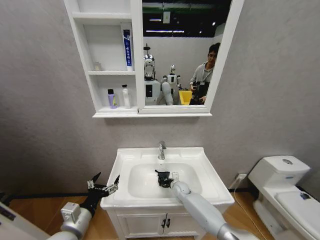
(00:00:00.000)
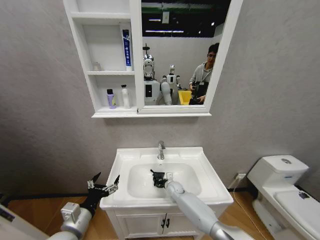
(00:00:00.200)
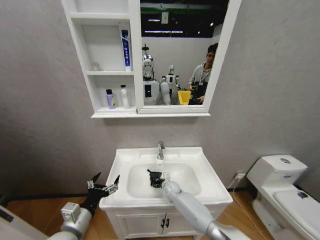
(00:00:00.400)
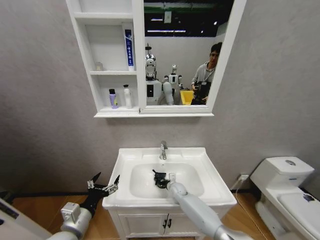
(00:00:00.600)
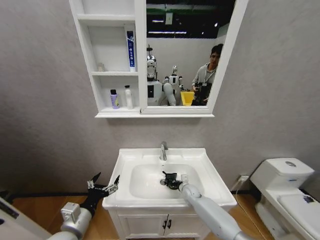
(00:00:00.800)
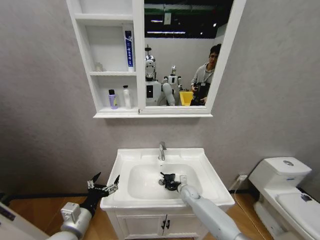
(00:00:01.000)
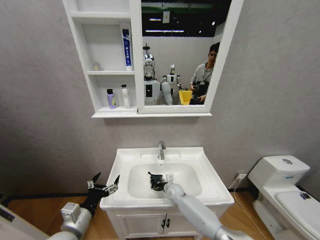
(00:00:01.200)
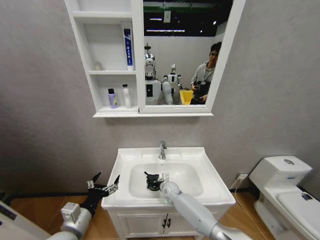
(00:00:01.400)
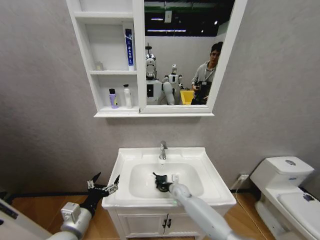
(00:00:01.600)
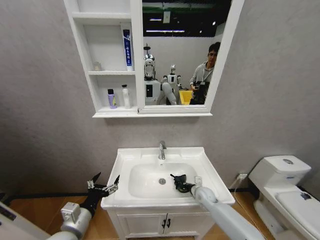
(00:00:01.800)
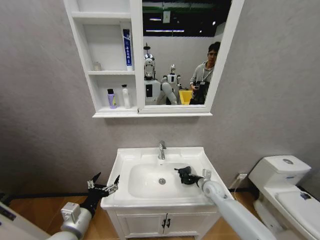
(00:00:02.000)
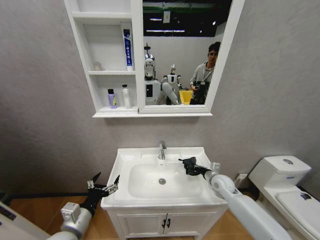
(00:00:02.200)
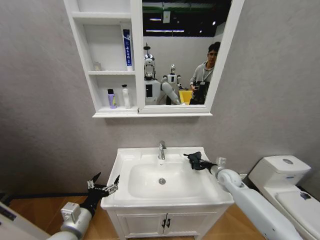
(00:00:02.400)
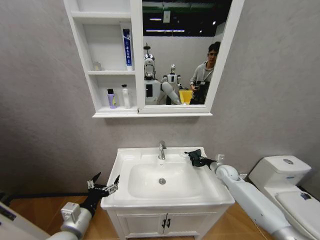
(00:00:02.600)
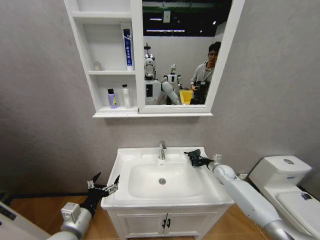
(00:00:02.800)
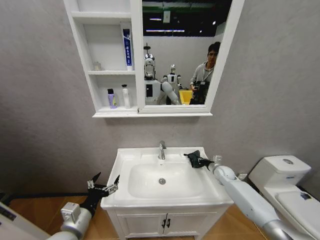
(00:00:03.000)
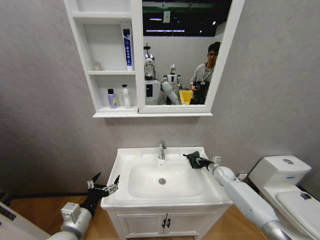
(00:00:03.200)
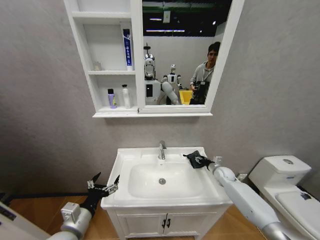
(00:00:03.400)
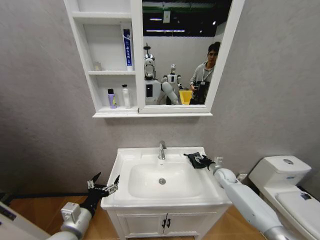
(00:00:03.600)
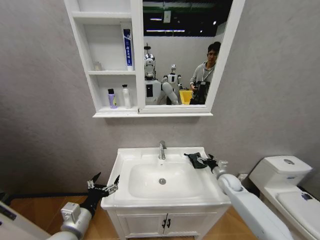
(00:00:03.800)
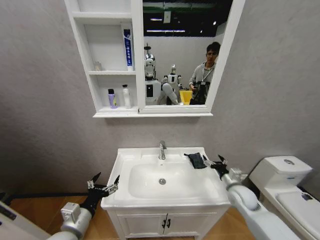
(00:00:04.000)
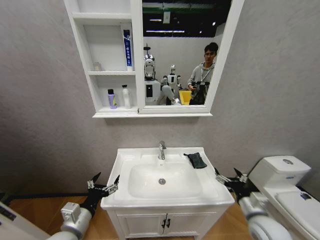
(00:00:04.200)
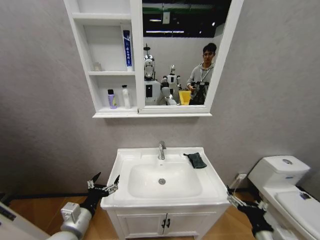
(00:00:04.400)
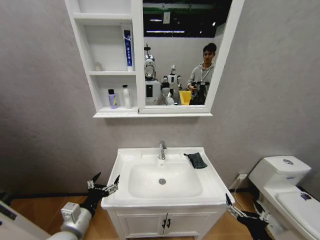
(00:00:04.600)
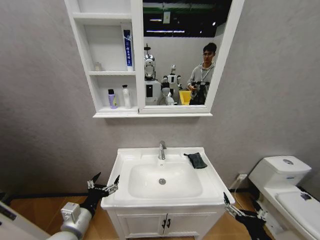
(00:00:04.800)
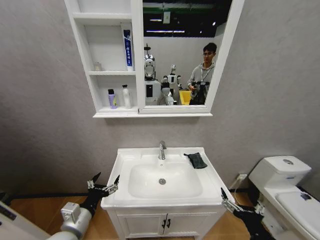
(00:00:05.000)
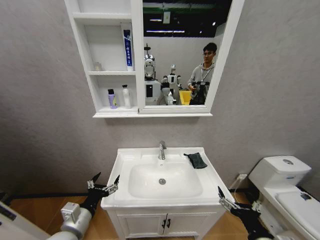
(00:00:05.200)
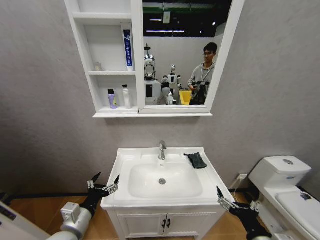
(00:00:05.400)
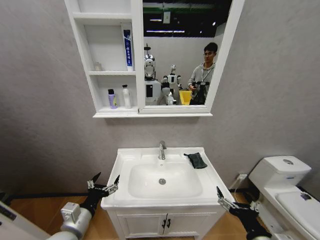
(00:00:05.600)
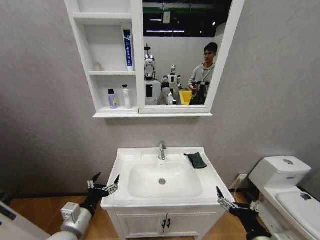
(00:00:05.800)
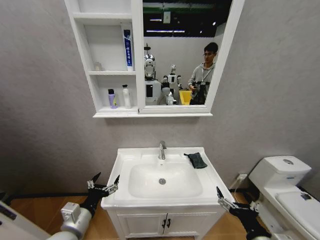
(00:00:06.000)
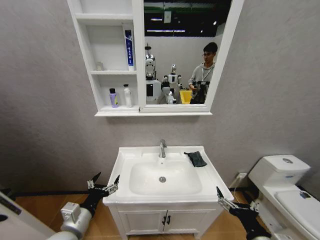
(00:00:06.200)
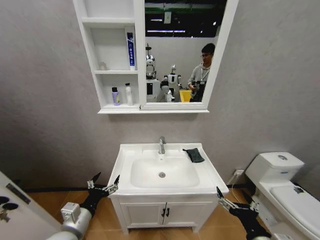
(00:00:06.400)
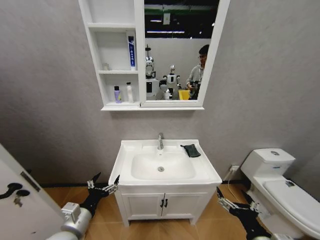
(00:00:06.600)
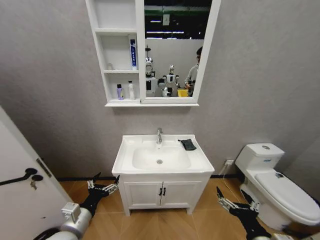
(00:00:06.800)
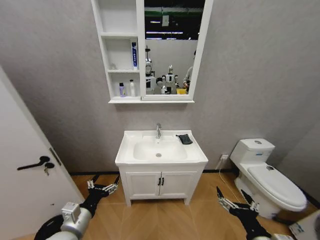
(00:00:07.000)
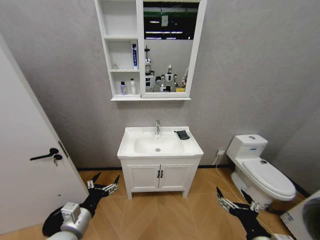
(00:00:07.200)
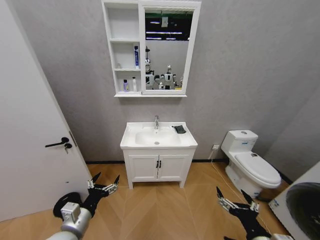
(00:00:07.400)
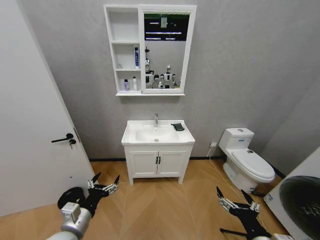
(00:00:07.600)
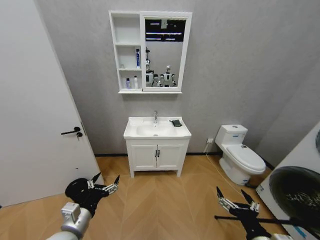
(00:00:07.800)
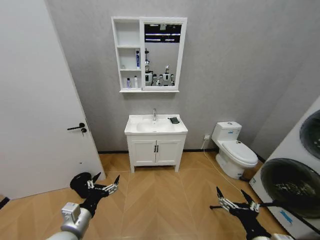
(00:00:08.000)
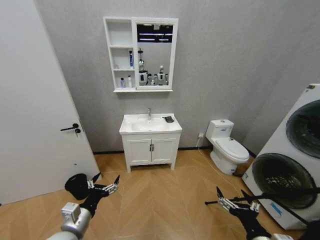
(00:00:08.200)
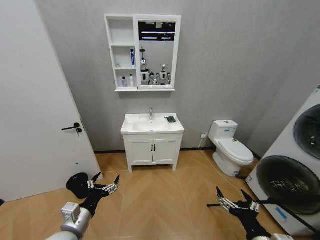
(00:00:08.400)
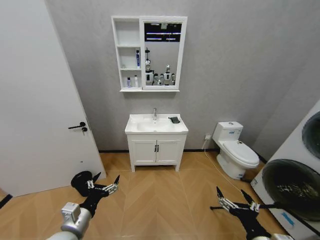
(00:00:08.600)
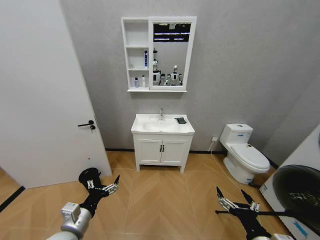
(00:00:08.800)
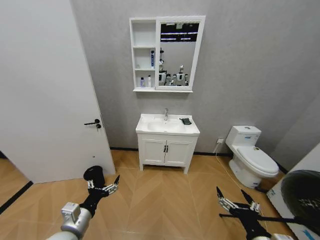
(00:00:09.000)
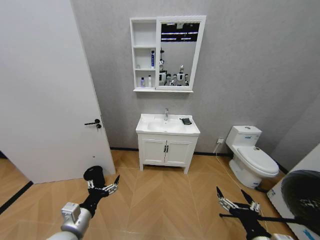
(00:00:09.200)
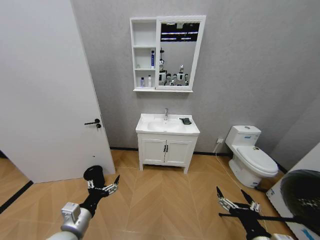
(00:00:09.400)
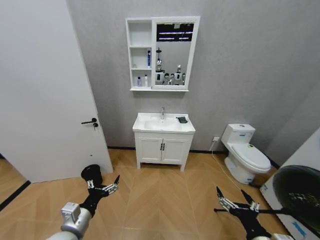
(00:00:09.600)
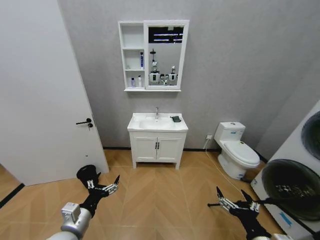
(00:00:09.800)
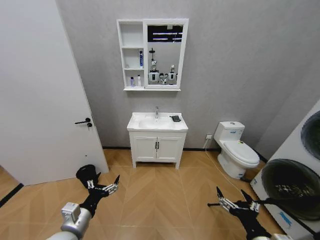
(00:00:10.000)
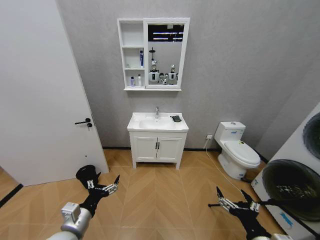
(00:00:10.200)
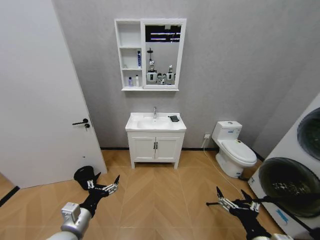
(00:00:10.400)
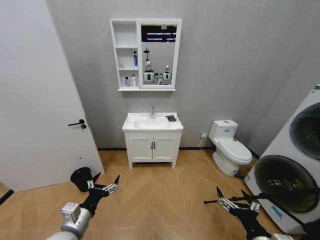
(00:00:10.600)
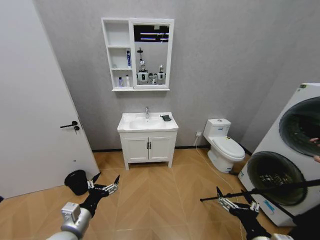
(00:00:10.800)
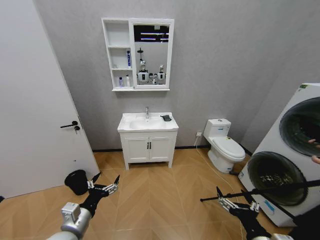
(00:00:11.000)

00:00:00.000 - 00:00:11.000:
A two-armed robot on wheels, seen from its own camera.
Task of the whole recording: Move facial cleanser and shampoo from washbasin to cabinet, then wipe washbasin with towel.
00:00:00.000 - 00:00:01.600: The right gripper moves left and right over about 10 cm, changing direction 3 times.
00:00:01.600 - 00:00:03.200: The right gripper shifts roughly 25 cm to the right.
00:00:03.200 - 00:00:04.800: The right gripper heads backward, covering some 40 cm, and opens its fingers.
00:00:04.800 - 00:00:06.200: The grippers move only a little.

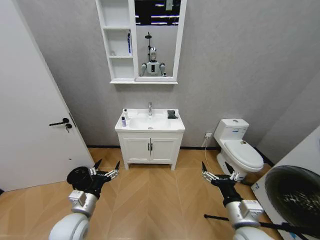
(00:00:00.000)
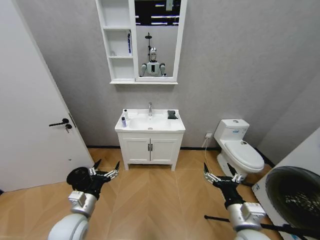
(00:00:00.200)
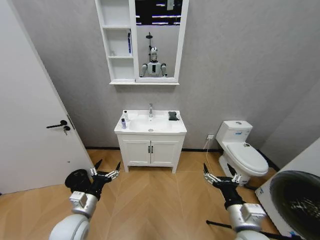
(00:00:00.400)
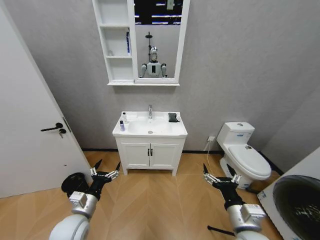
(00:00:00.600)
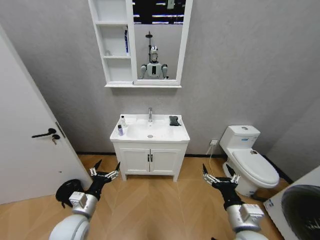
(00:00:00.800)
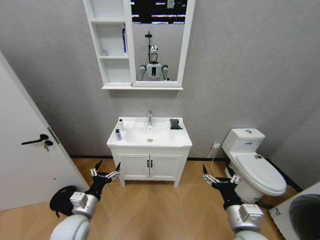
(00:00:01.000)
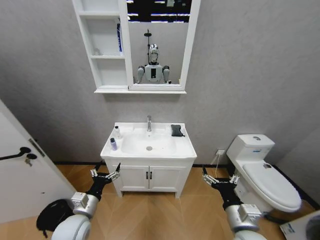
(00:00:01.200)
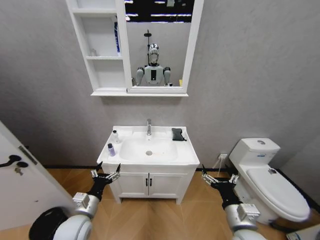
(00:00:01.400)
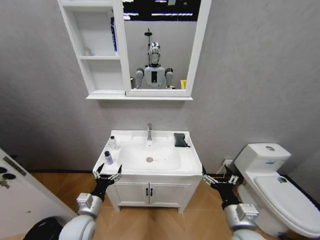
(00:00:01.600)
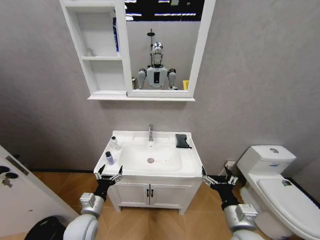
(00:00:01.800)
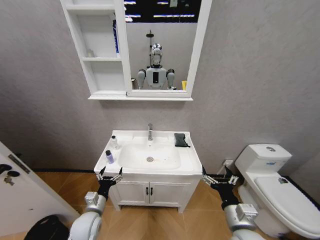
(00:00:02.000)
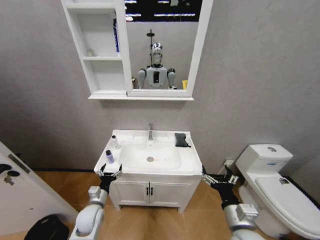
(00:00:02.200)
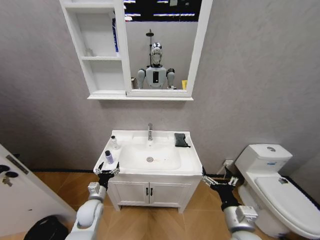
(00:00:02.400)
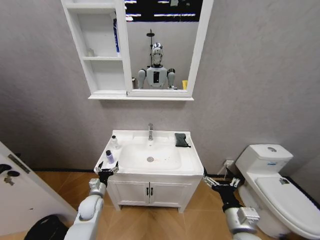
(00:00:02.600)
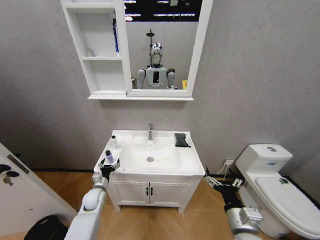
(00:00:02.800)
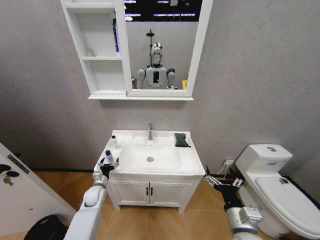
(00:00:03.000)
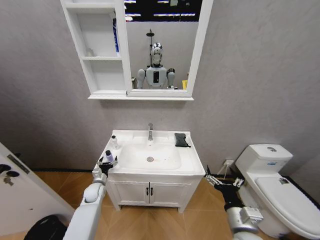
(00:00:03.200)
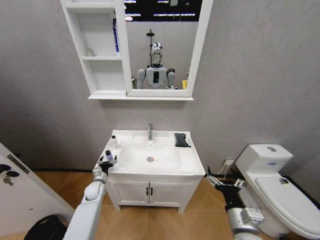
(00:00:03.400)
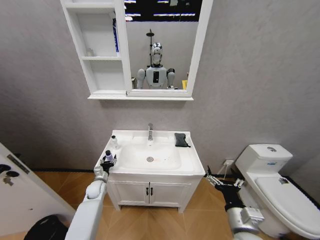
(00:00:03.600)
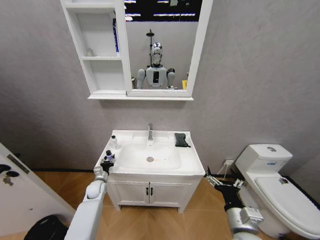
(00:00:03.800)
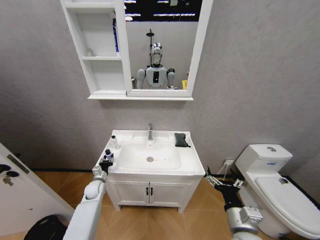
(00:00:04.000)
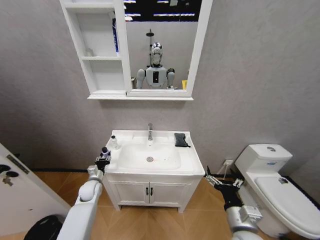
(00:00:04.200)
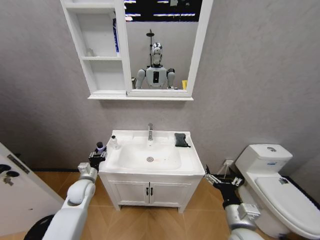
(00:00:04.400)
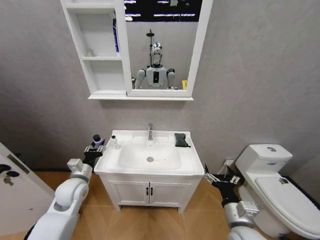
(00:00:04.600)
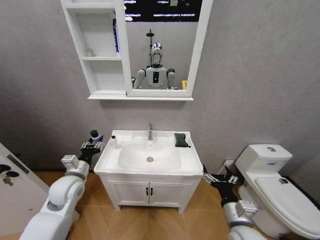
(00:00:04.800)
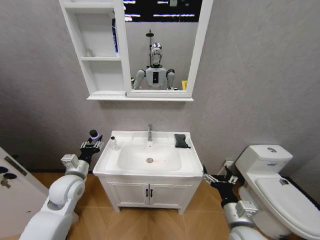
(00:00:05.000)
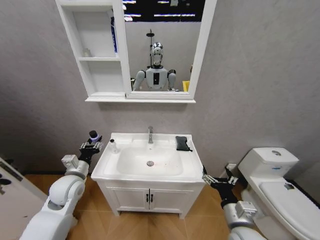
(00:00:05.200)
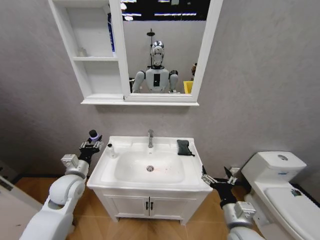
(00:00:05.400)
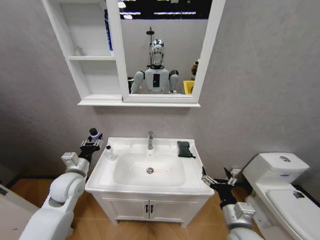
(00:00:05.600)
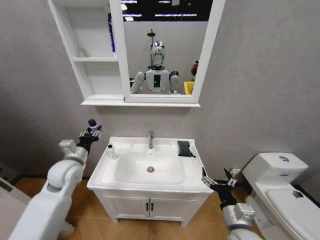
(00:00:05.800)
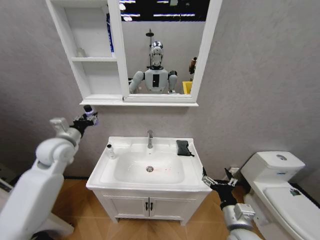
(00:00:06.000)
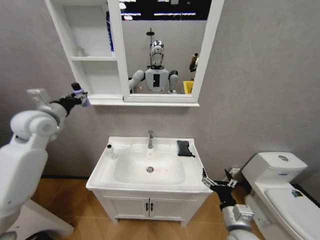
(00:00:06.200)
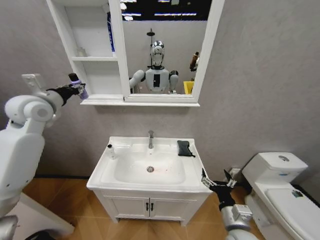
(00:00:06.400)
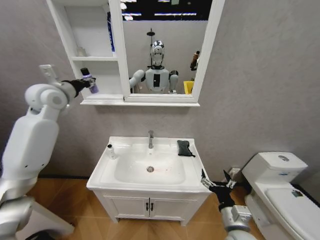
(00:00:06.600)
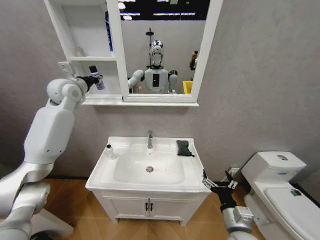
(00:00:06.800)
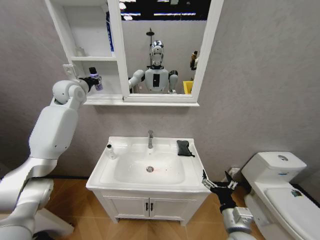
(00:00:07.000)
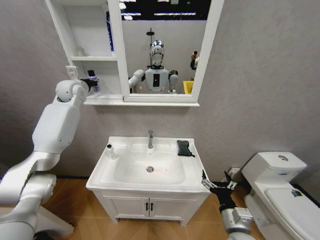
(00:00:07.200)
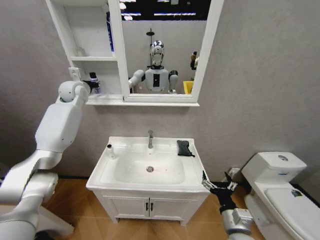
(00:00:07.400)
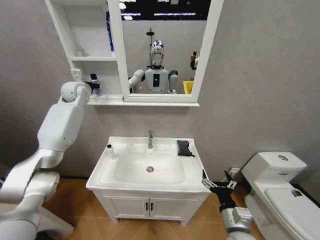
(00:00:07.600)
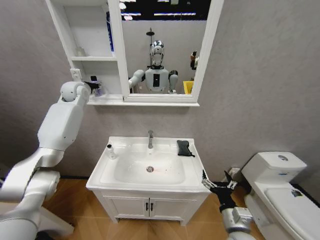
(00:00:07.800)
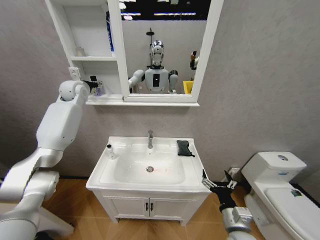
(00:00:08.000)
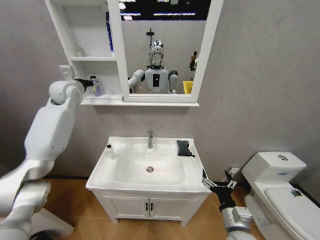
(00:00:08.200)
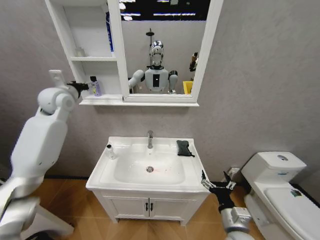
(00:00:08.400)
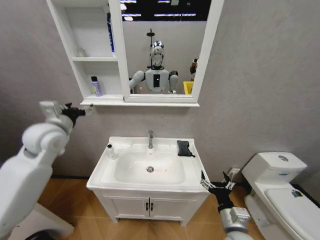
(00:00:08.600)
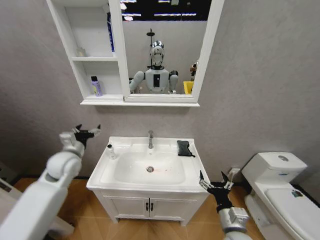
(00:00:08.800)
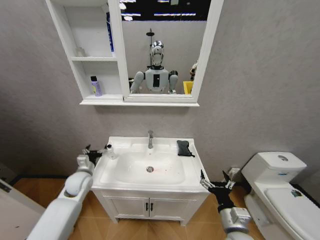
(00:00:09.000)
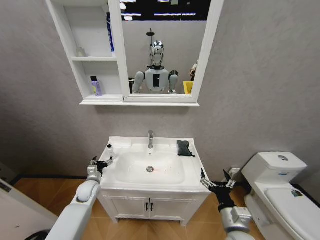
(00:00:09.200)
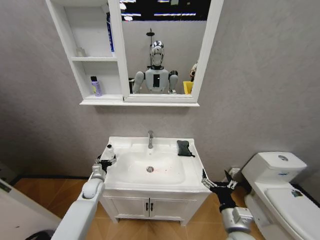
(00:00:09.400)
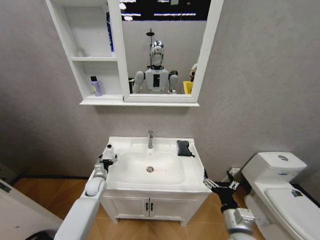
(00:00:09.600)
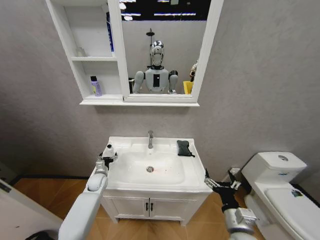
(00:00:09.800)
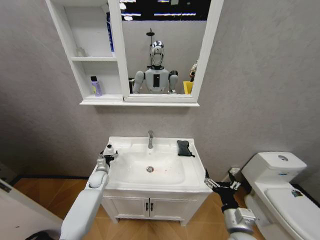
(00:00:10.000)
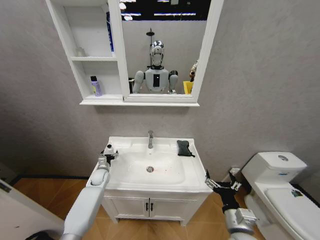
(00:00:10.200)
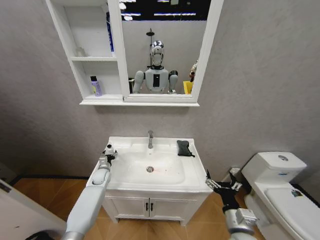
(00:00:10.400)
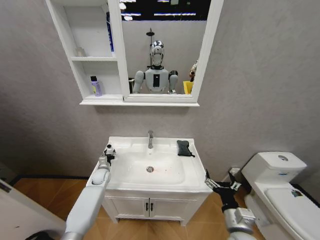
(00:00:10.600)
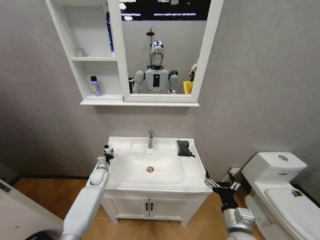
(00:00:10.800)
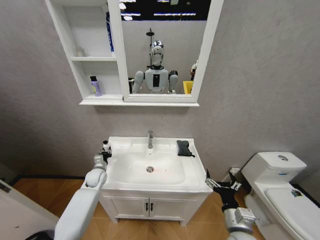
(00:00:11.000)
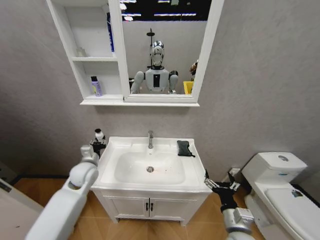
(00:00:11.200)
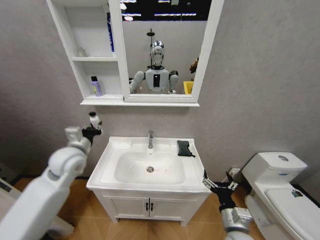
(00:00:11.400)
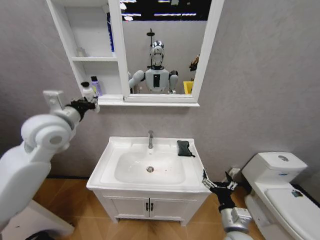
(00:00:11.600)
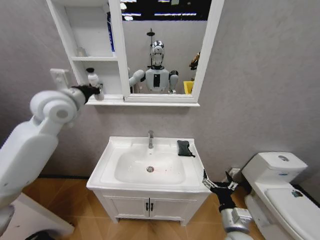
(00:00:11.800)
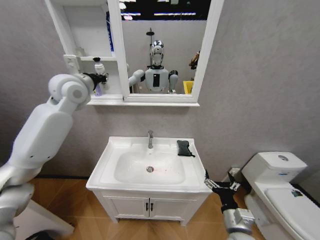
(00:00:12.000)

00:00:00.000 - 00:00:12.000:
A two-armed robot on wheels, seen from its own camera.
Task of the whole recording: Move facial cleanser and shampoo from washbasin to cabinet, then wipe washbasin with towel.
00:00:01.600 - 00:00:03.000: The left gripper goes about 20 cm forward and downward.
00:00:03.000 - 00:00:04.400: The left gripper heads upward, covering roughly 5 cm, and closes up.
00:00:04.400 - 00:00:06.000: The left gripper is displaced upward by roughly 25 cm.
00:00:06.000 - 00:00:07.600: The left gripper is displaced forward and upward by about 25 cm.
00:00:07.600 - 00:00:09.000: The left gripper shifts approximately 40 cm downward and backward, and opens its fingers.
00:00:09.000 - 00:00:10.400: The left gripper goes approximately 15 cm downward and forward.
00:00:10.400 - 00:00:12.000: The left gripper shifts approximately 50 cm upward, and closes.
